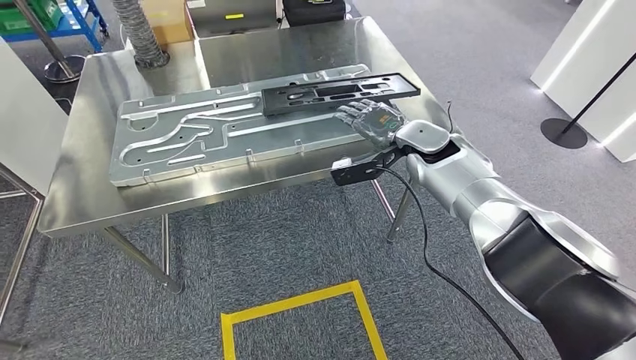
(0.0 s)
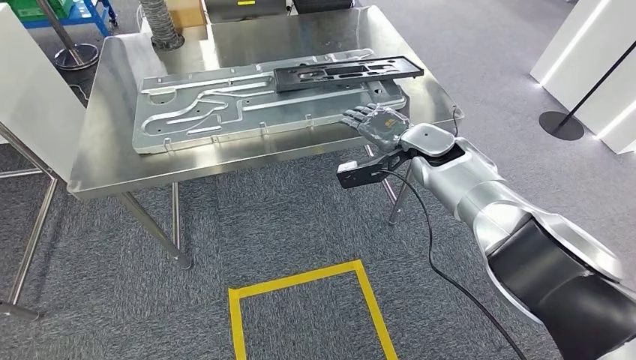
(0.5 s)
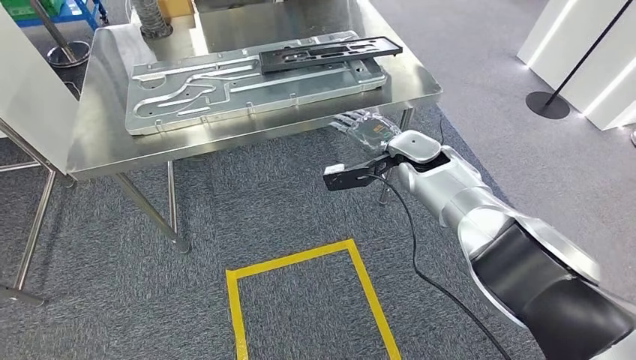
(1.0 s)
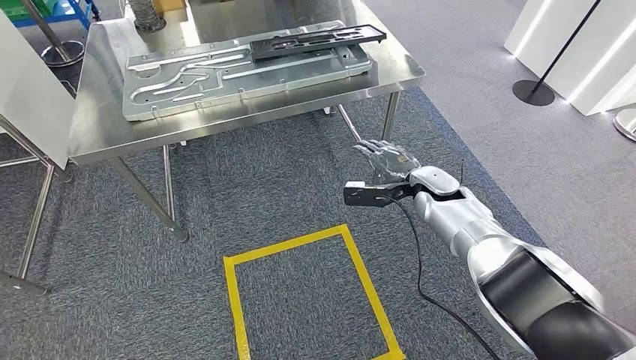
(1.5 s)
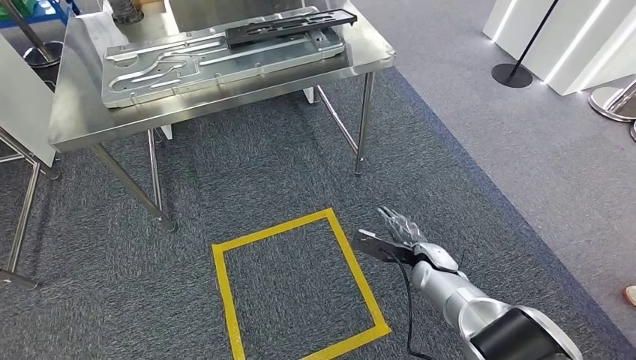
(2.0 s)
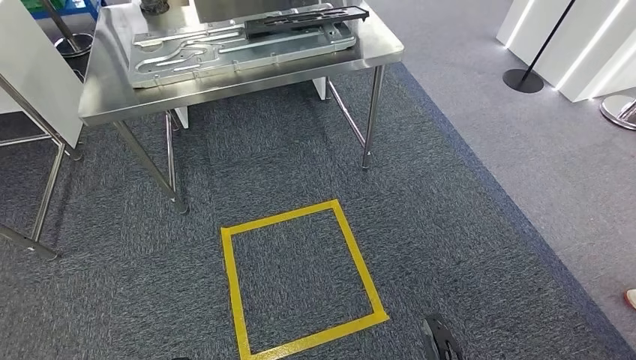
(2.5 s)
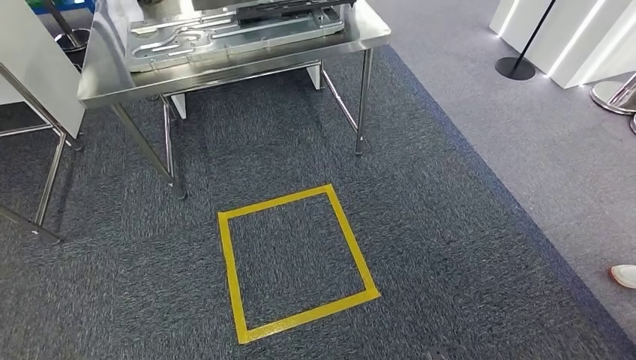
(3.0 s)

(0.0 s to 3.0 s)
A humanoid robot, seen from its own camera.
Step, 0.0 s - 3.0 s: Move to the initial position of the shelf.
